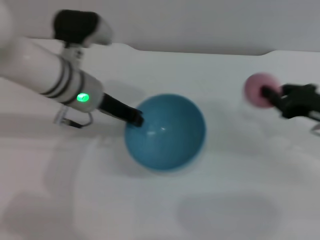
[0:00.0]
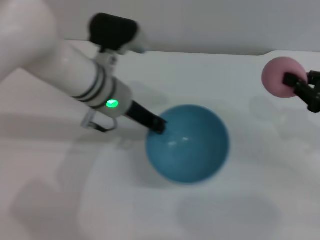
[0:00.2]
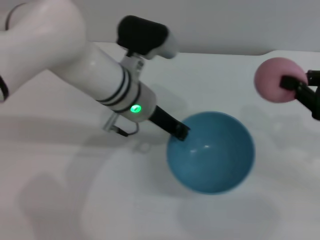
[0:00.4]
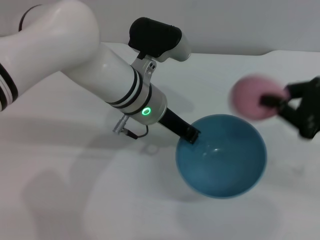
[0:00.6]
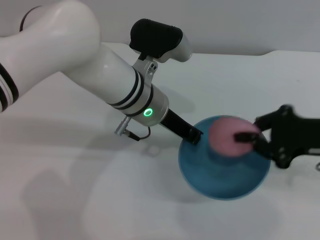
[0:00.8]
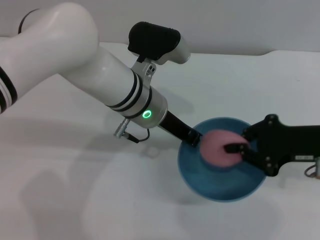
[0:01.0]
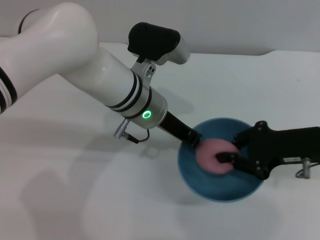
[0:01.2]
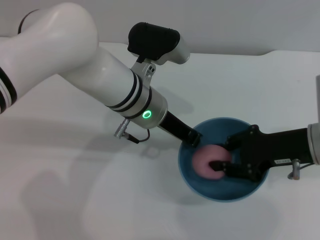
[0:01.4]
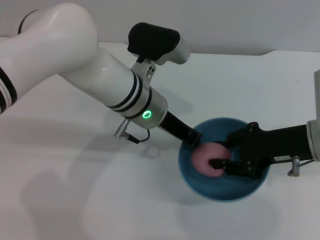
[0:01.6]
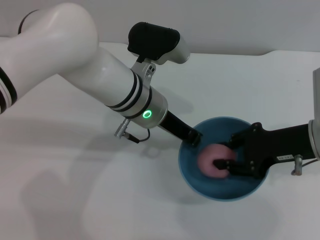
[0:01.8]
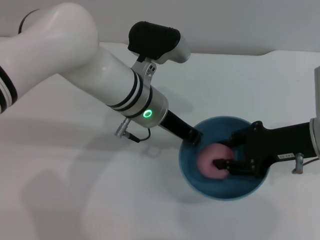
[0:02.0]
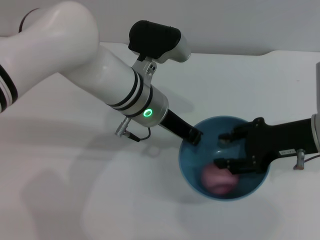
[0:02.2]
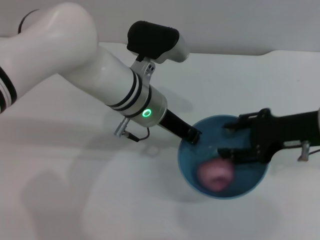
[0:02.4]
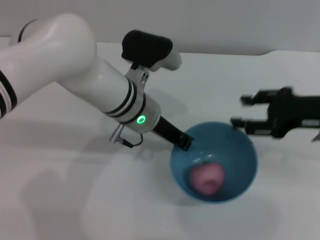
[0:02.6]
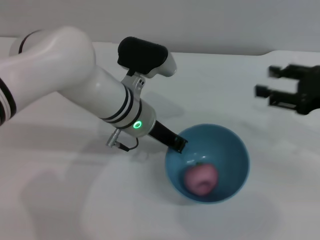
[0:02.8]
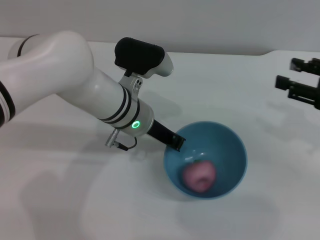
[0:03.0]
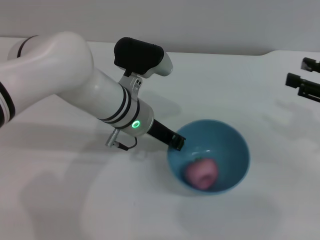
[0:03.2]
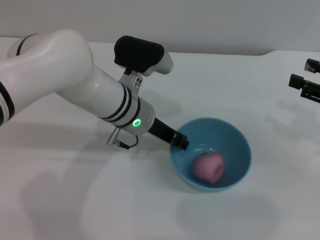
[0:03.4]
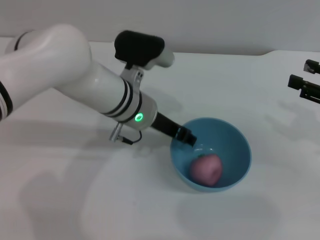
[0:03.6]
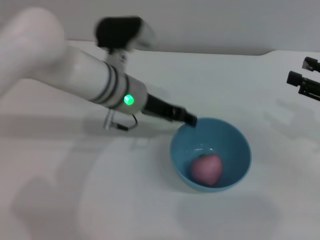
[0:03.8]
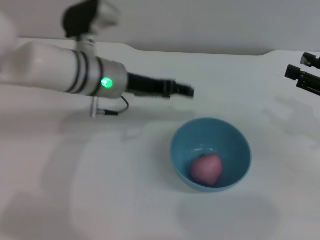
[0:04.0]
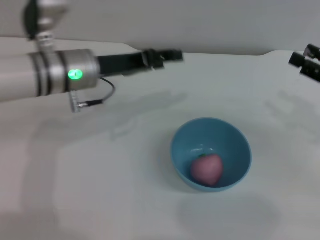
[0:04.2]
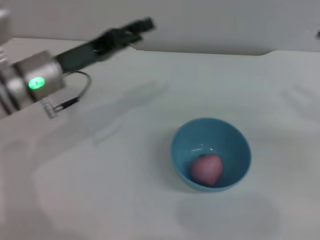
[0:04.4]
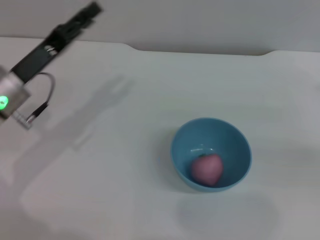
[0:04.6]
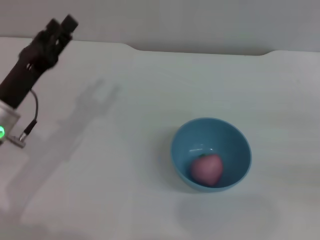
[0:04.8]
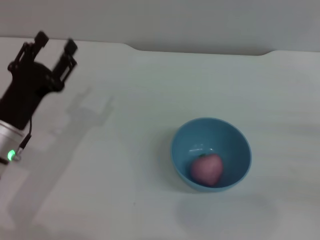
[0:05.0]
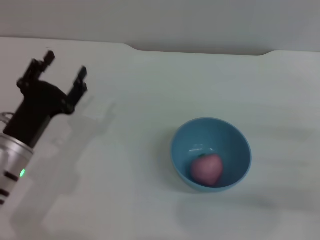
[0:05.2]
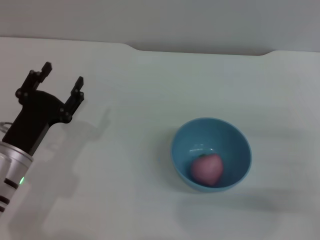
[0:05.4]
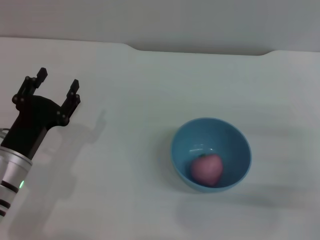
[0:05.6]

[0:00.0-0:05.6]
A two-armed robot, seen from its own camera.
Task of the whole recording: put the peach into the blue bowl and pour it out repeatedly.
Step, 0:00.0 to 0:02.2: Place the peach into the bowl.
Step, 0:02.4 to 0:03.8: Place the bowl on the table.
0:00.0 to 0:01.4: The left gripper goes roughly 10 cm to the right. Meanwhile the right gripper travels to the left by about 5 cm.
0:01.4 to 0:02.8: The right gripper is displaced to the right by some 5 cm, and opens up.
0:02.8 to 0:04.2: The left gripper heads to the left, covering roughly 10 cm, and opens.
0:04.2 to 0:05.6: The right gripper goes approximately 10 cm downward and backward. The left gripper goes some 20 cm backward, downward and to the left.

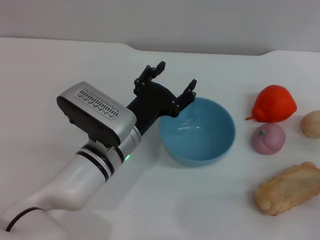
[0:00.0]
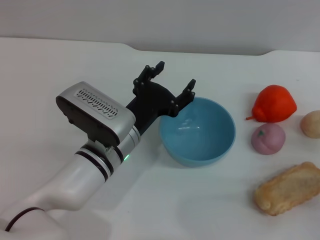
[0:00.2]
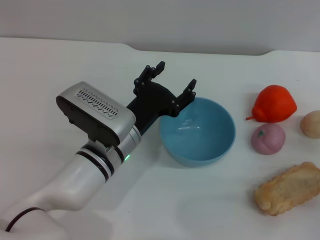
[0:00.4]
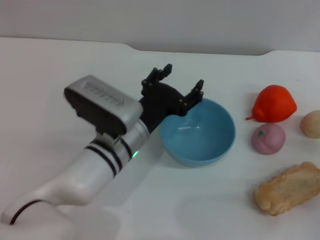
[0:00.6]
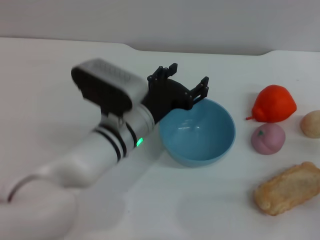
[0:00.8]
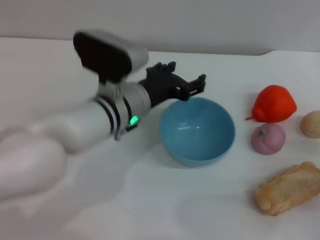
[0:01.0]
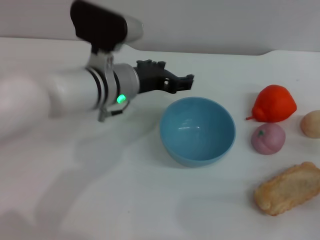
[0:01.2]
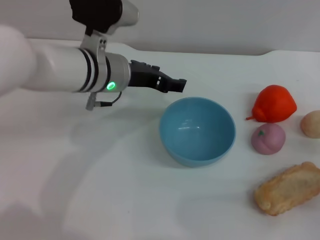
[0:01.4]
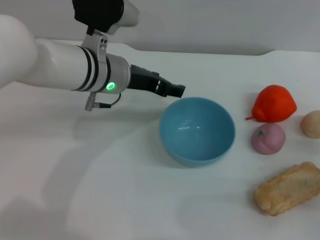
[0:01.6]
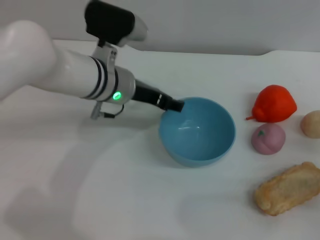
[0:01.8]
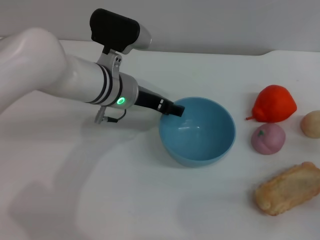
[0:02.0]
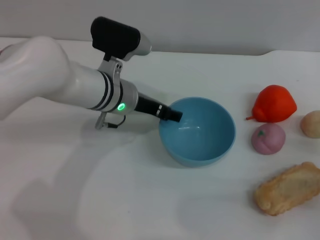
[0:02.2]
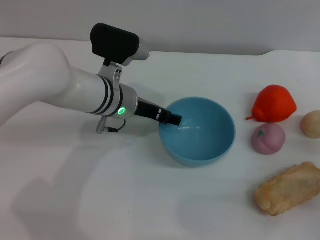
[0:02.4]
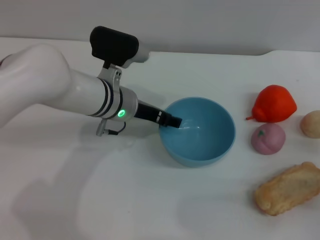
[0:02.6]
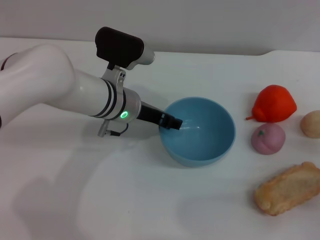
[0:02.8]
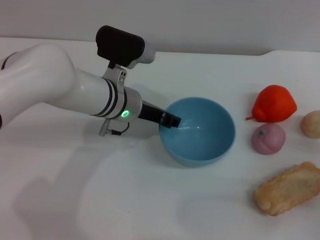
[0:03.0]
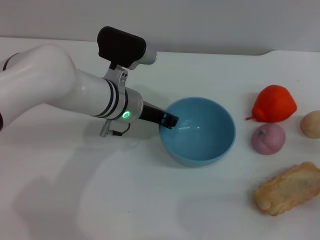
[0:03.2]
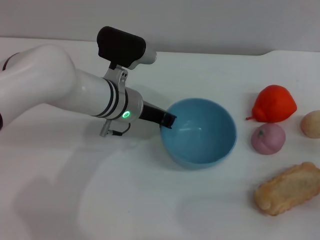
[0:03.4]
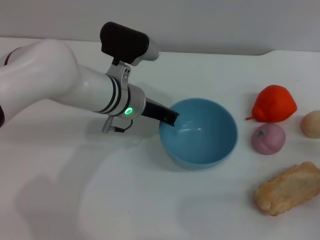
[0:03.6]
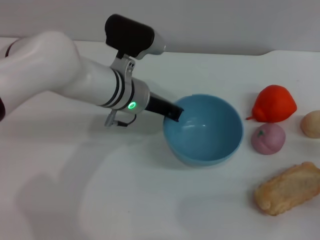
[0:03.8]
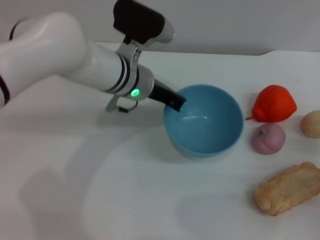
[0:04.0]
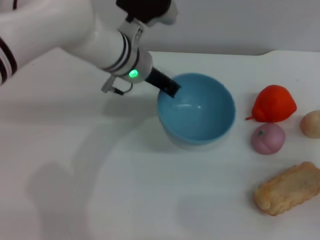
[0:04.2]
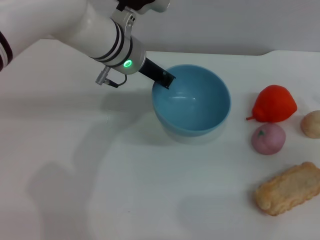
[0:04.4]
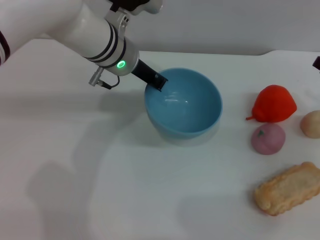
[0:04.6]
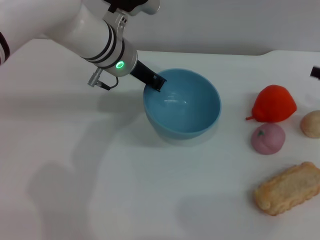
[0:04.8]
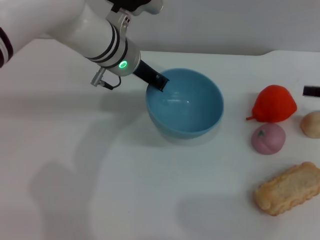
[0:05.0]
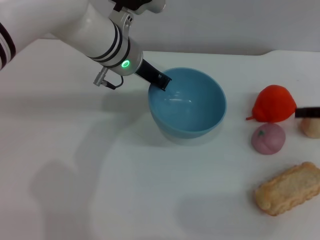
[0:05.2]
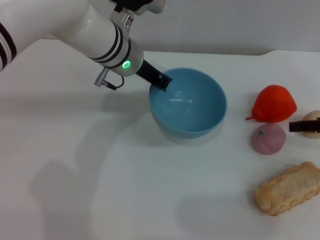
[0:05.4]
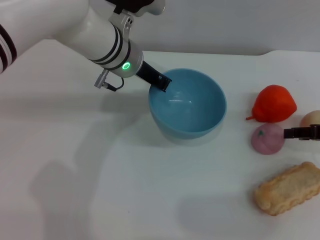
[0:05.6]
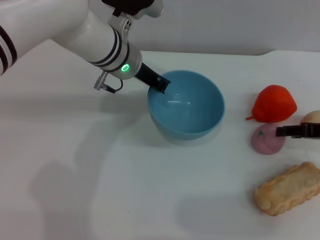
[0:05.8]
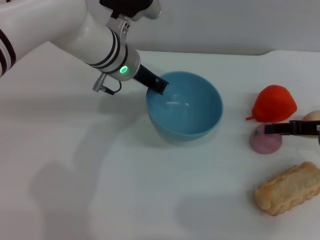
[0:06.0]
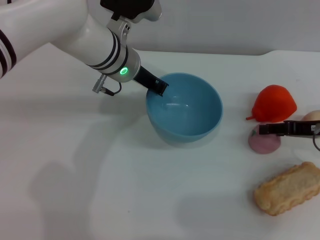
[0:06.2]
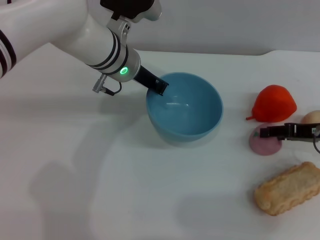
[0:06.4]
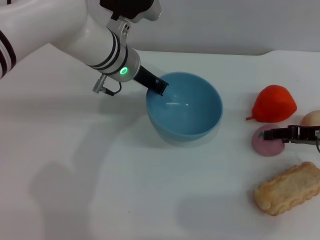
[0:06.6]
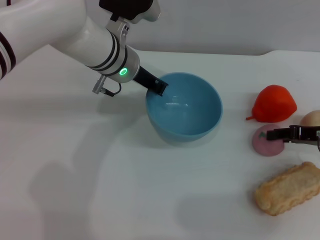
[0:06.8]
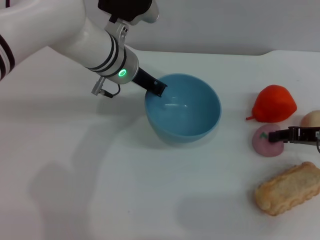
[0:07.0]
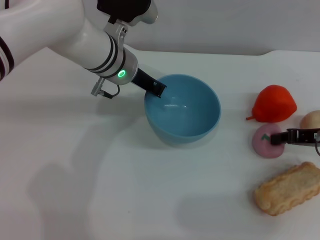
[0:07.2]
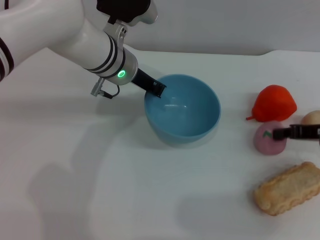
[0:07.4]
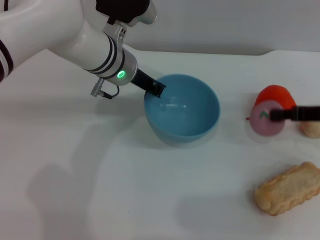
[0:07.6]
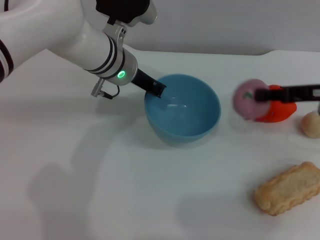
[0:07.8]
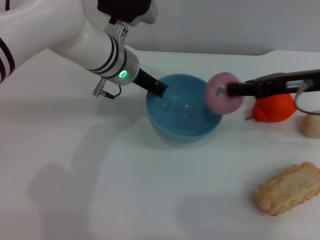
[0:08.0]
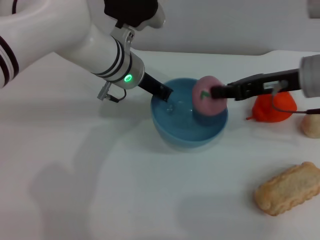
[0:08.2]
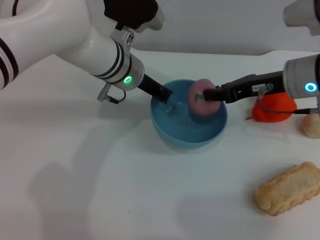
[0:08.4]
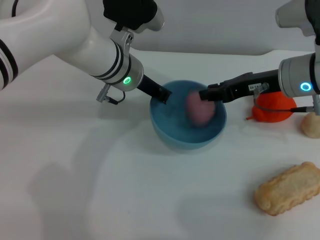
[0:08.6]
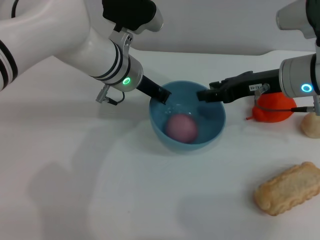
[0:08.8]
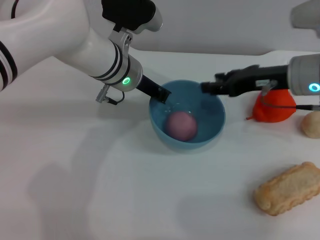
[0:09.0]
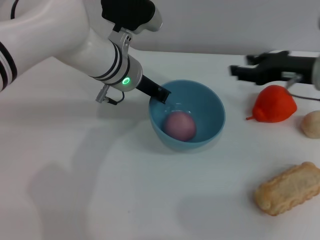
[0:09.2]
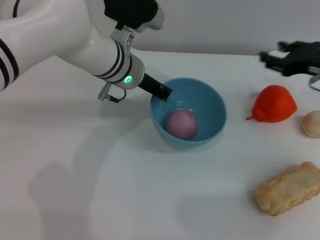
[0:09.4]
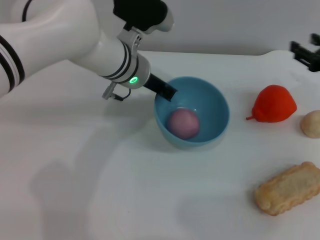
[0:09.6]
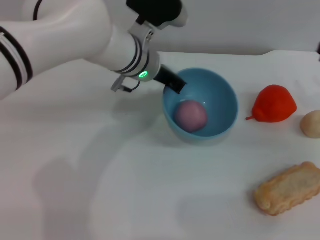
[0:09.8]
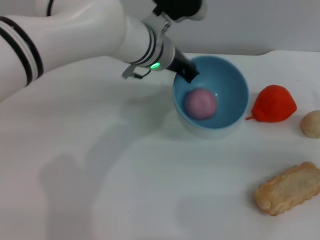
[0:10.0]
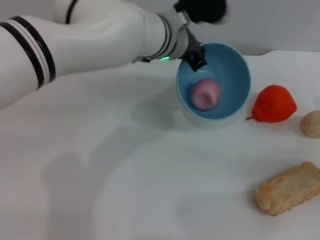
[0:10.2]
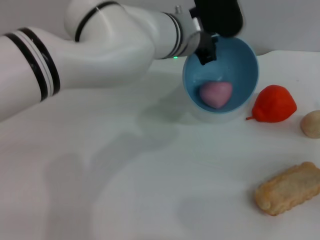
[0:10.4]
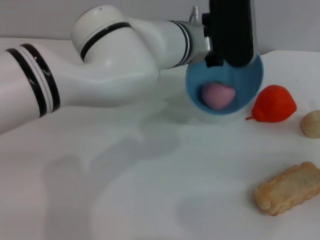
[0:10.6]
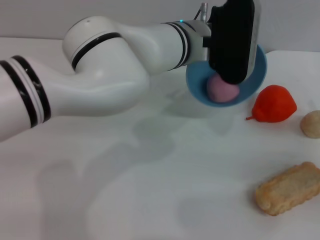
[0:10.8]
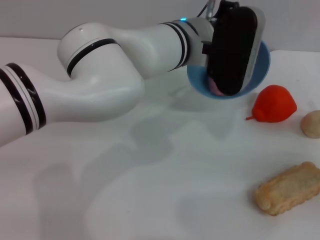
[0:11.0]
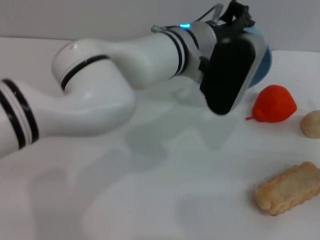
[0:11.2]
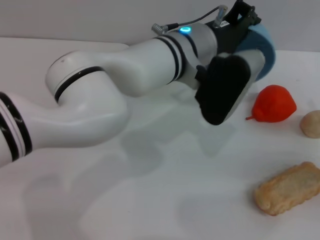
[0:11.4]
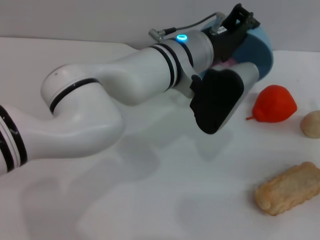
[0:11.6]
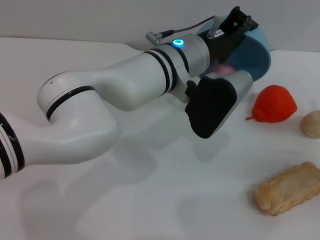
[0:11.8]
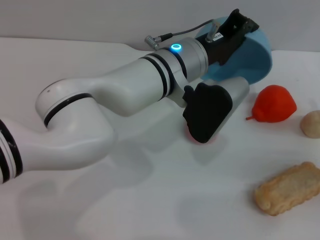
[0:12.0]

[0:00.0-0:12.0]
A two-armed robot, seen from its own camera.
Task of the whole recording: put the peach into the blue bowl and pour it out repeatedly.
Step, 0:00.0 to 0:04.6: Pick up the bowl with the left gripper.
Step, 0:04.8 to 0:07.6: Pick up the peach with the right gripper.
Step, 0:07.8 to 0:08.8: Place the peach into the bowl.
0:00.0 to 0:01.6: The left gripper heads forward and upward, covering approximately 15 cm.
0:01.6 to 0:03.0: The left gripper heads downward, covering some 5 cm.
0:03.0 to 0:04.4: The right gripper goes roughly 5 cm forward. Meanwhile the left gripper shifts some 5 cm upward, and closes.
0:04.4 to 0:06.0: The right gripper moves forward, some 5 cm, and moves about 10 cm upward and comes back.
0:06.0 to 0:07.6: The right gripper closes up.
0:07.6 to 0:09.0: The right gripper is displaced to the left by approximately 10 cm, and opens up.
0:09.0 to 0:10.4: The right gripper goes approximately 20 cm to the right, backward and downward. The left gripper is displaced to the right by about 10 cm.
0:10.4 to 0:12.0: The left gripper shifts some 5 cm backward.

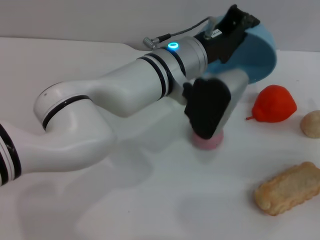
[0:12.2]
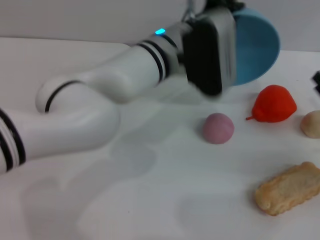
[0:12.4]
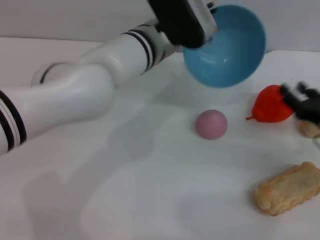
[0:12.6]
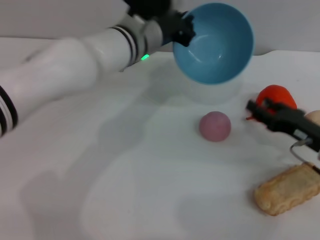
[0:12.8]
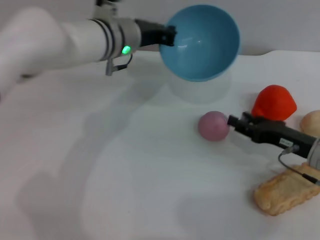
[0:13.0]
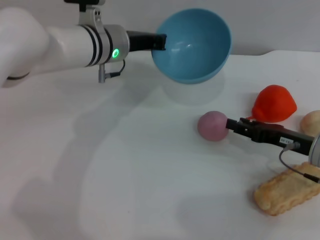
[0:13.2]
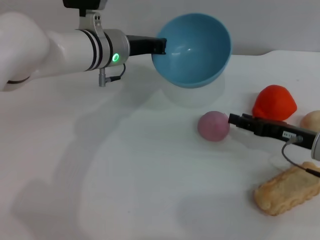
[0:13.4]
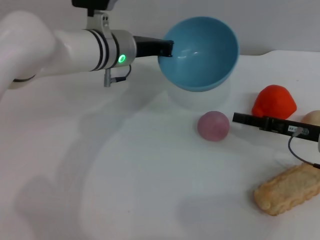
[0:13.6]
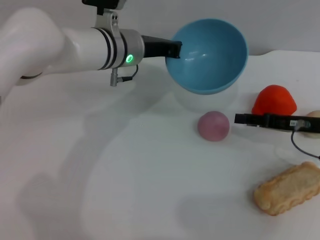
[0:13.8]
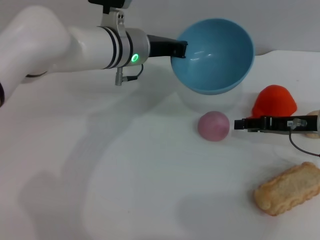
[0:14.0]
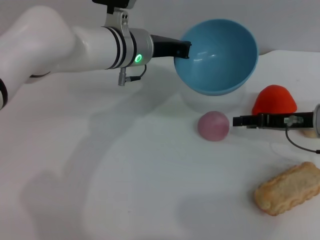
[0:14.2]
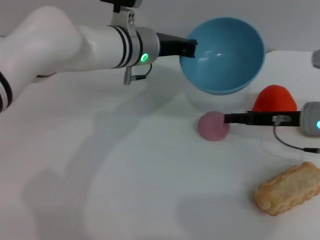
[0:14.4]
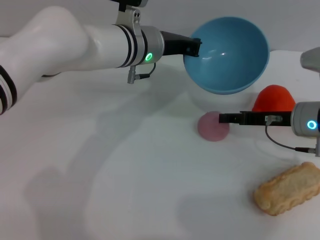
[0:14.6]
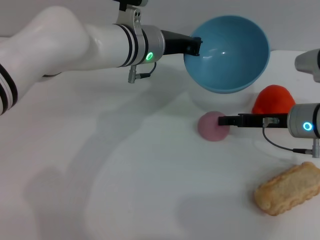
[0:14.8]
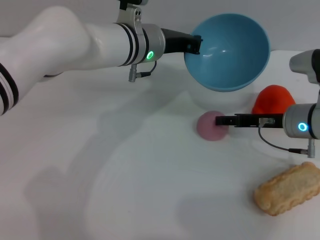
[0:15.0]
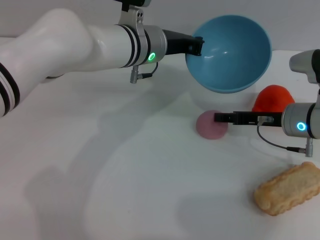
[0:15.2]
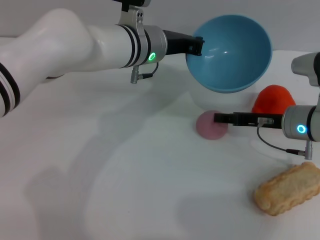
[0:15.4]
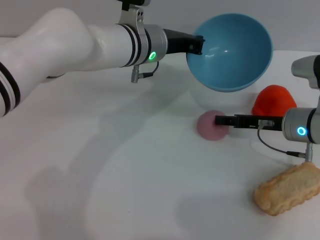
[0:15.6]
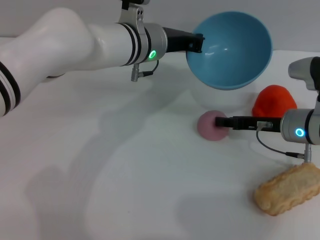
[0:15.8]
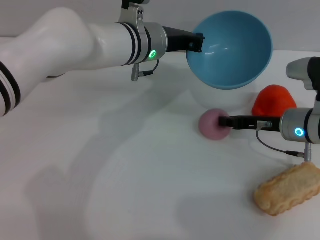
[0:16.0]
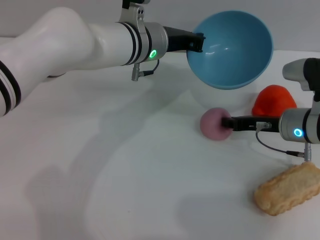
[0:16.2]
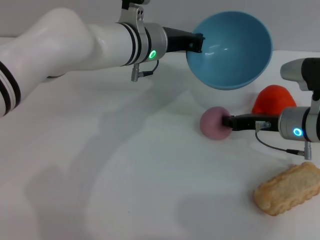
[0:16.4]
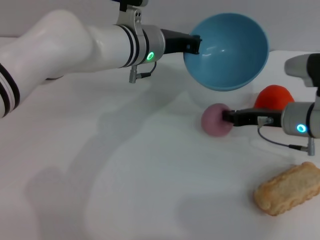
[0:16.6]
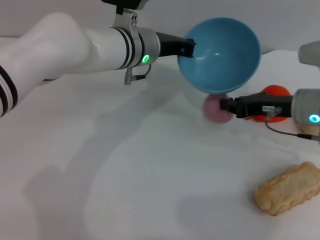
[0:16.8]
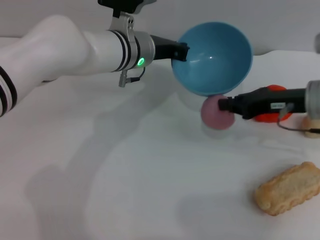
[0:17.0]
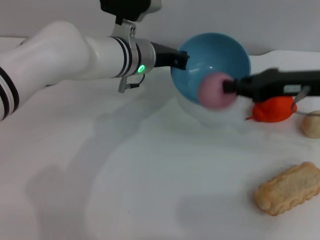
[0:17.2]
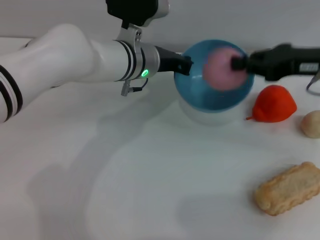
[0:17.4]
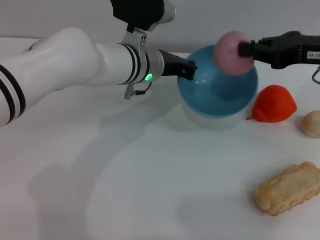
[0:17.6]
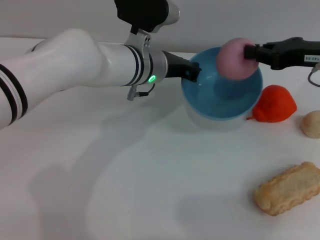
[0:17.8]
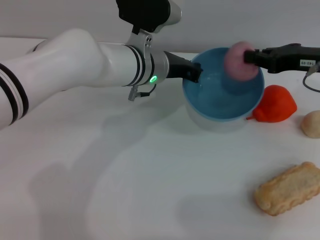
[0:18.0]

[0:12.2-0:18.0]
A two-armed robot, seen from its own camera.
Task of the whole recording: put the peach into the blue bowl and pour it out repeatedly.
Step, 0:12.6 to 0:16.8: Pick up the peach with the right gripper.
0:12.2 to 0:13.6: The right gripper moves to the left, some 5 cm. Meanwhile the left gripper travels to the left and forward by approximately 10 cm.
0:13.6 to 0:15.0: The right gripper travels to the left by about 5 cm.
0:15.0 to 0:16.6: The right gripper closes.
0:16.6 to 0:18.0: The right gripper heads upward, covering roughly 10 cm.
